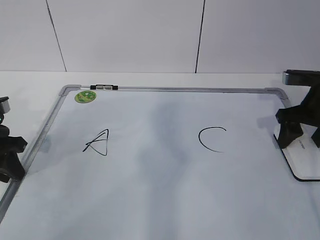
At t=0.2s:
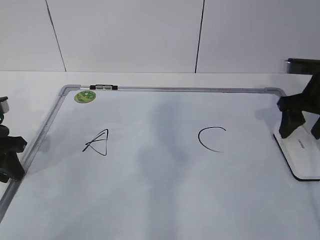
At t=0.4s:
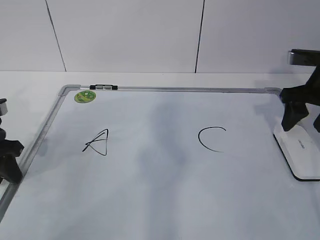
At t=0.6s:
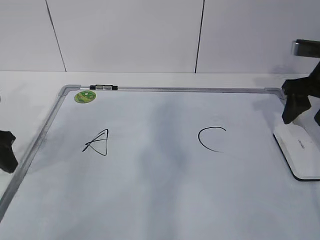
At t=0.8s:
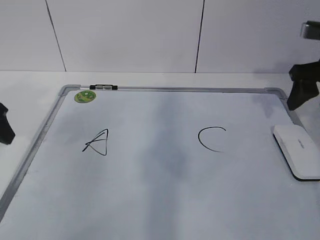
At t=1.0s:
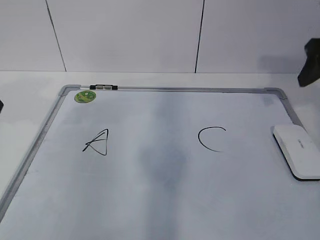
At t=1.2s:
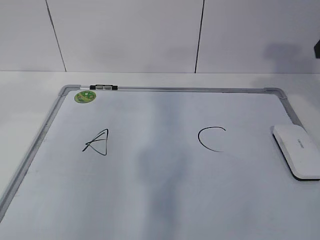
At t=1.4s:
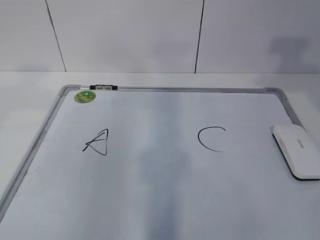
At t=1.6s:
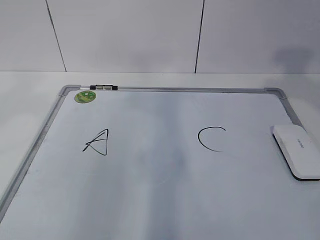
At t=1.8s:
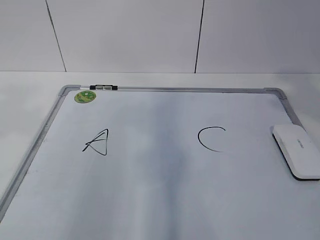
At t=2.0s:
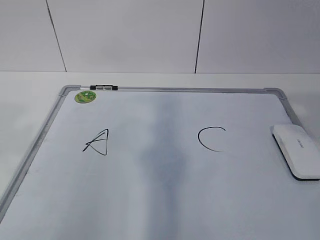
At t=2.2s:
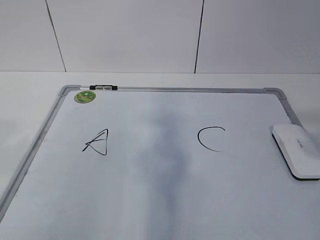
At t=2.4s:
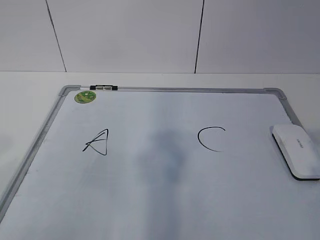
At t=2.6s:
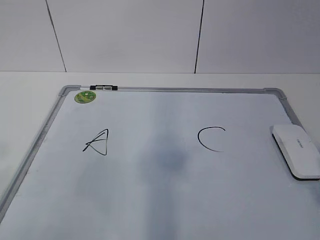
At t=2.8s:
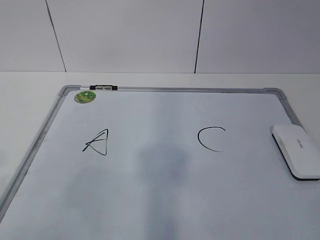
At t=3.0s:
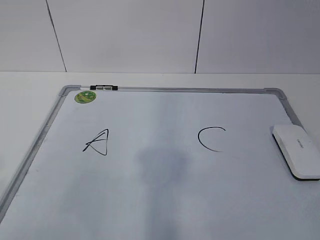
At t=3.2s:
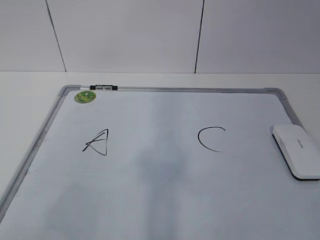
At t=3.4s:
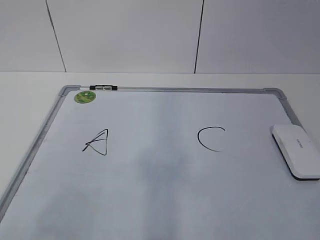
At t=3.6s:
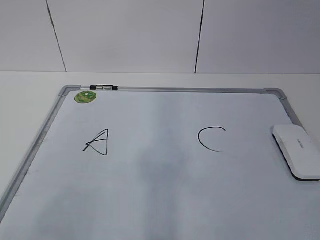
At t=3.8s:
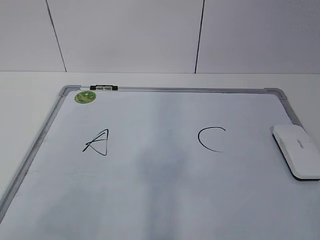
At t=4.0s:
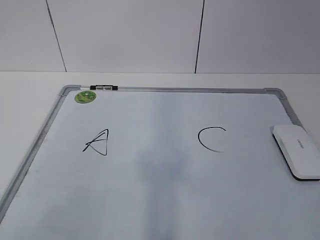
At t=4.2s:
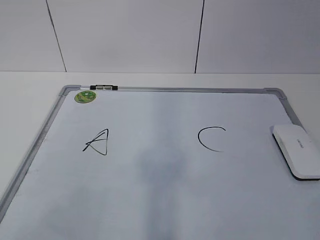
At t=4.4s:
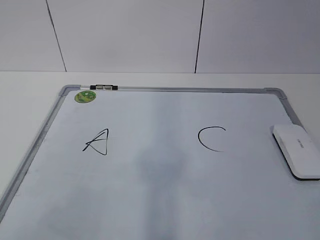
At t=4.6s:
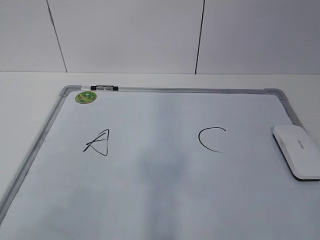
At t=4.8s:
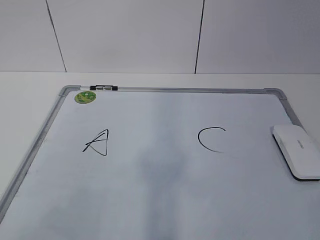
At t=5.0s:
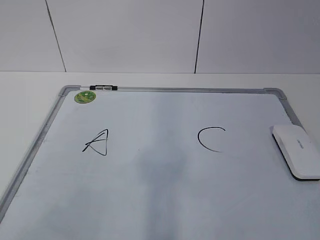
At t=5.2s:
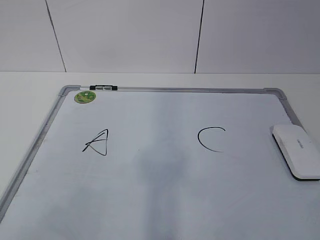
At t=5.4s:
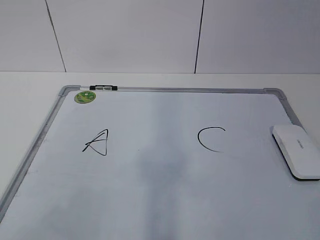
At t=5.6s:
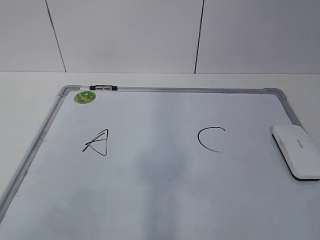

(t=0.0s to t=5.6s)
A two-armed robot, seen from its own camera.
Task of the whole recording: pick up the eraser on the blackboard and erase the letter "B".
t=0.0s - t=1.4s: The left gripper goes about 20 cm upward, and opens. The right gripper moves upward and backward, roughly 25 cm.
t=4.2s - t=5.6s: Both grippers stay put.
